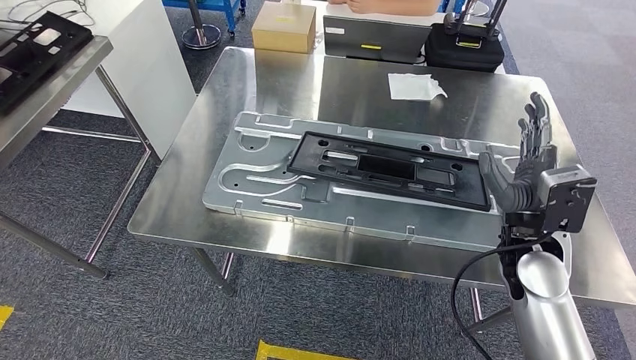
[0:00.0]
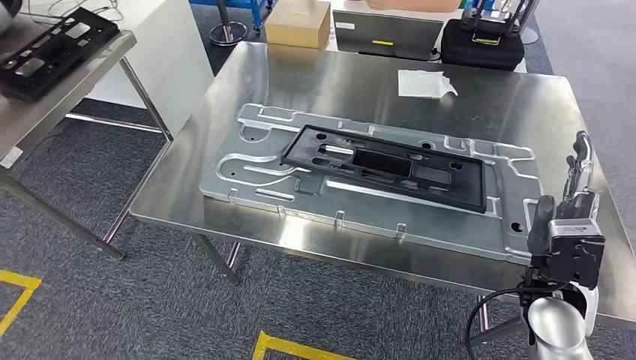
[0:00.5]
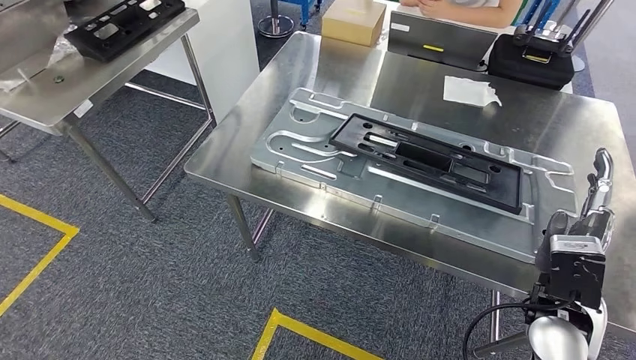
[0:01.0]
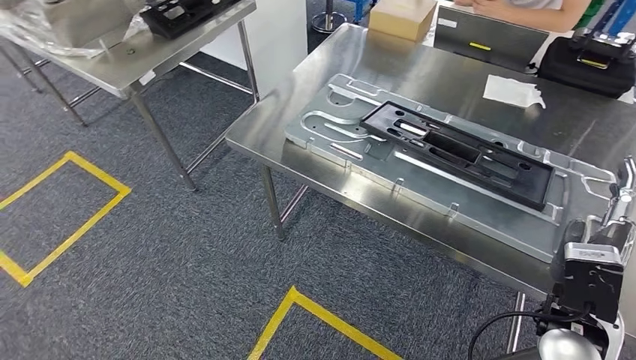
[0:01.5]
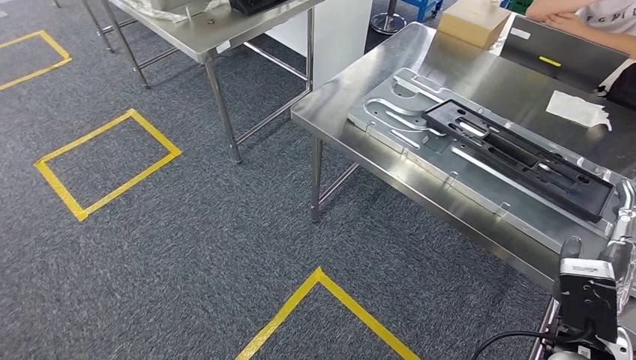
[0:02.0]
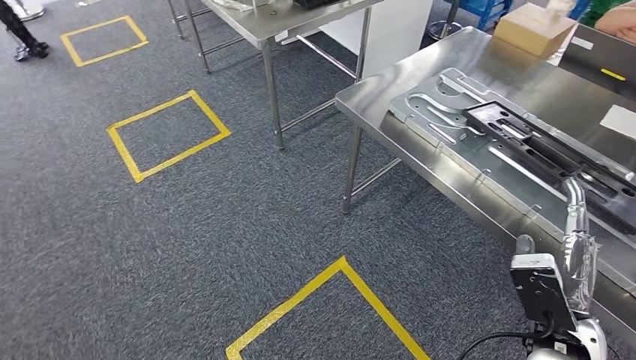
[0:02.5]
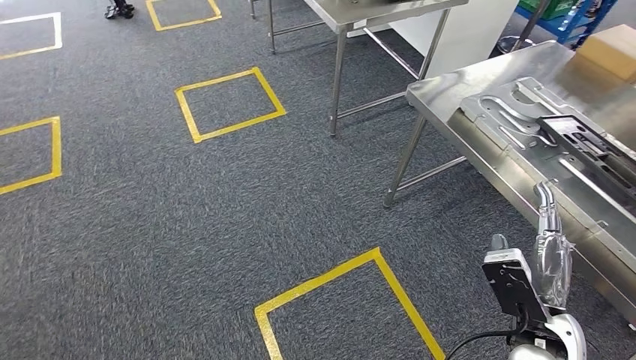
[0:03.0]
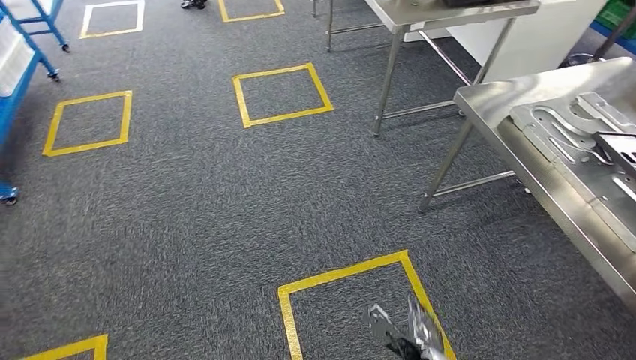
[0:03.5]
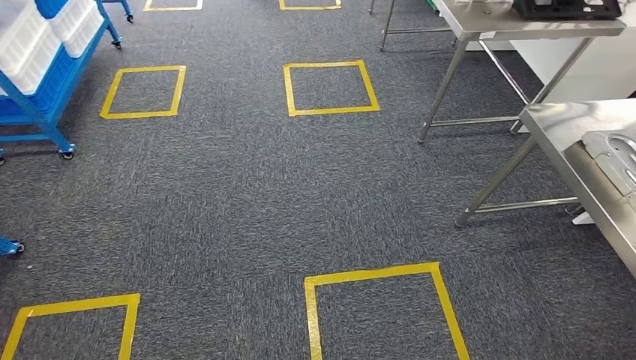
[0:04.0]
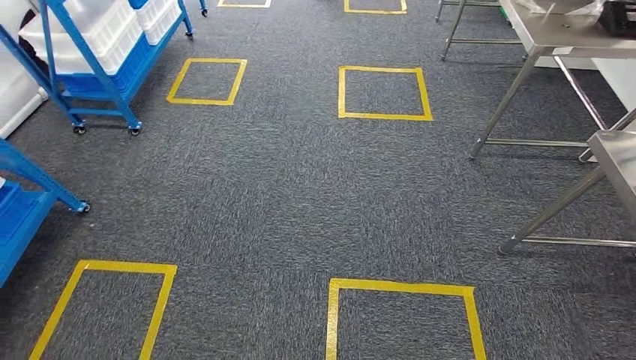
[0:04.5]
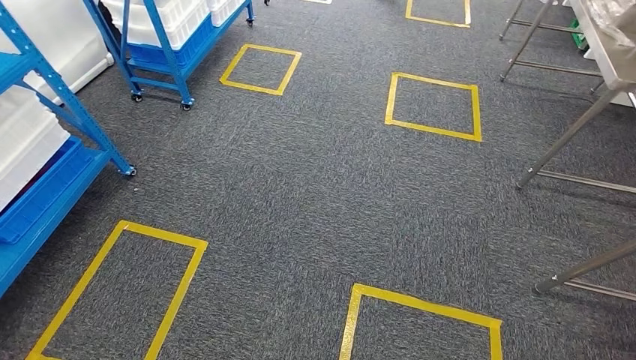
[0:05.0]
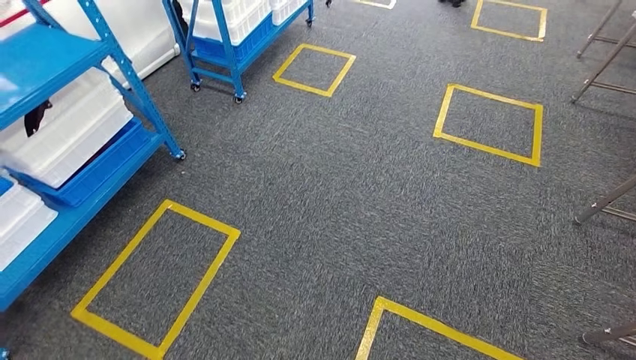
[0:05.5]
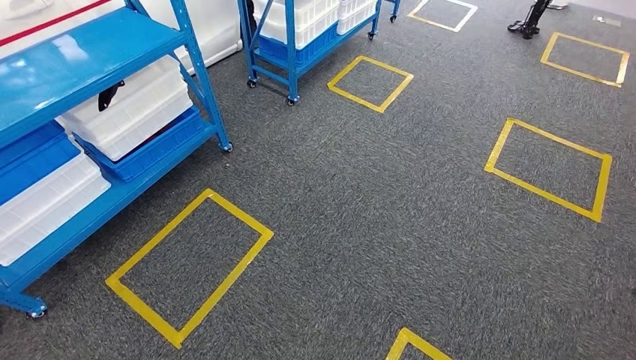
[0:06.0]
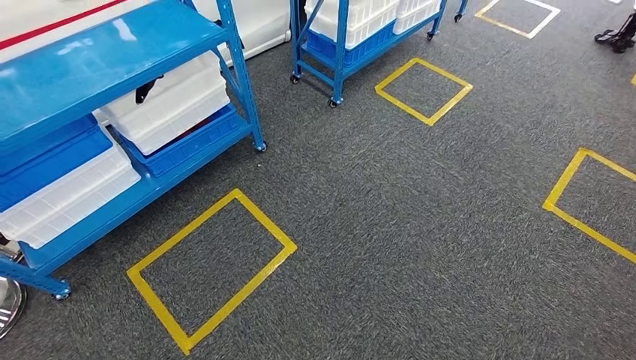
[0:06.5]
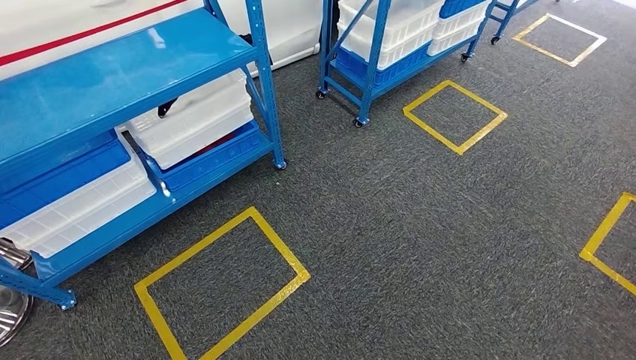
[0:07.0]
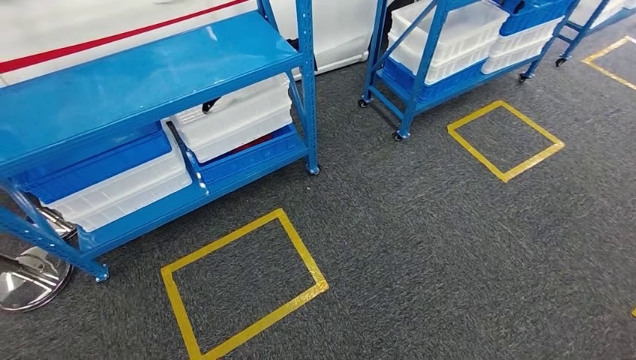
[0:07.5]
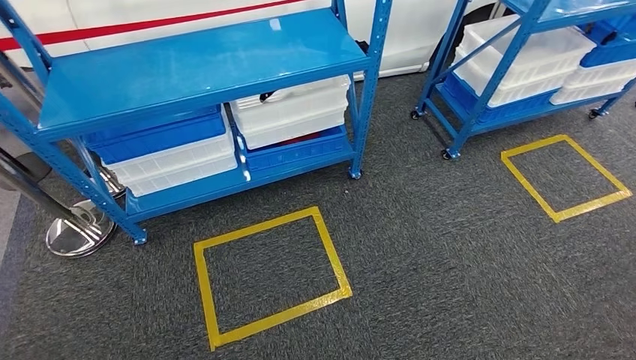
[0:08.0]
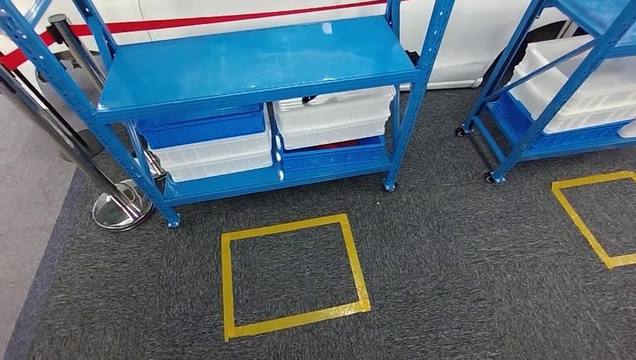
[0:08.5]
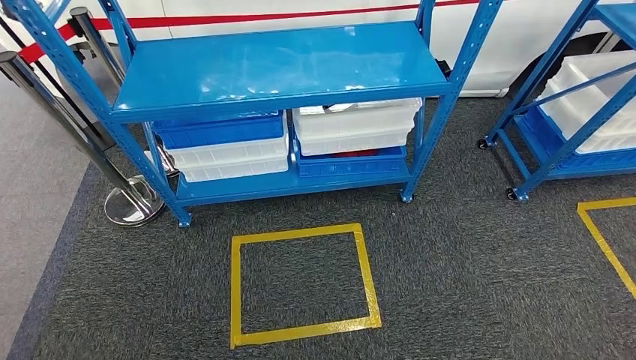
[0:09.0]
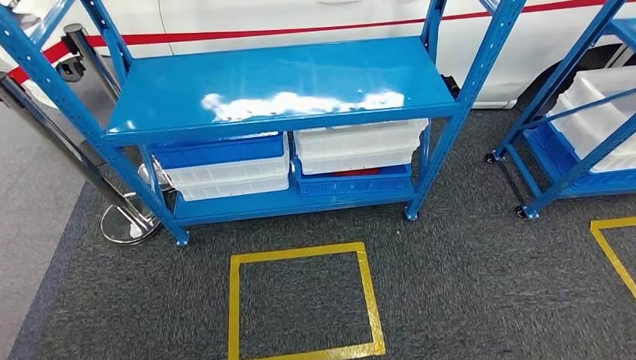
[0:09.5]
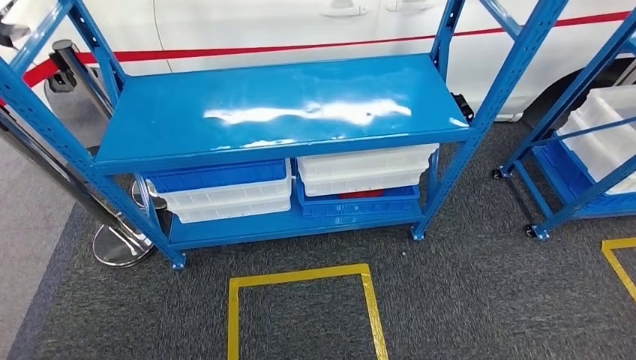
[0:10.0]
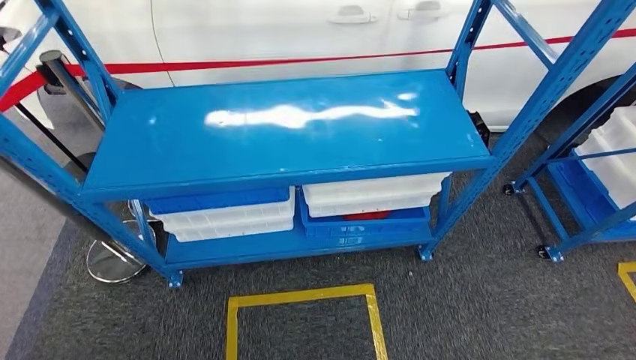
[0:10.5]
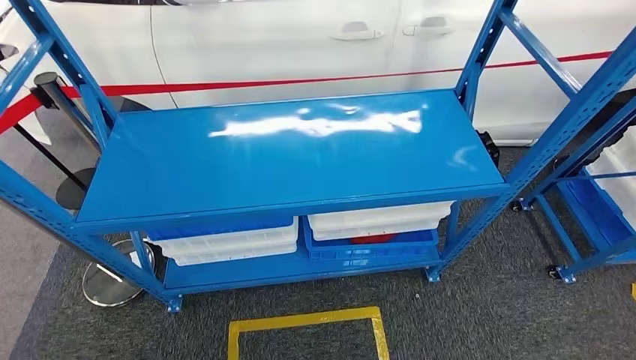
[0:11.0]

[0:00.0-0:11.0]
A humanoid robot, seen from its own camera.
Step, 0:03.0 to 0:10.5: Return to the initial position at the shelf.

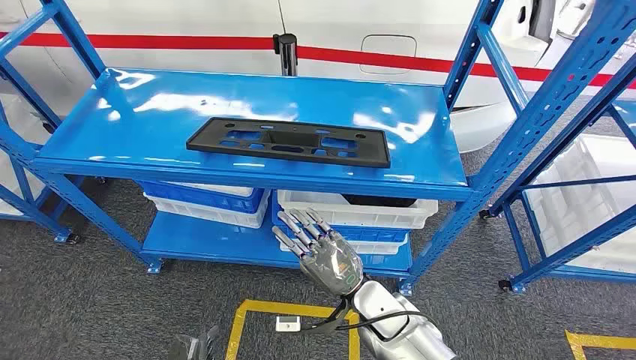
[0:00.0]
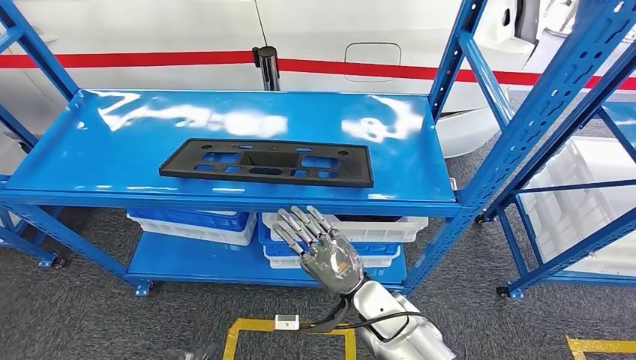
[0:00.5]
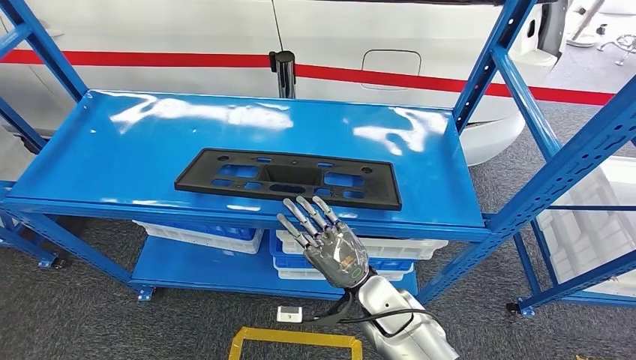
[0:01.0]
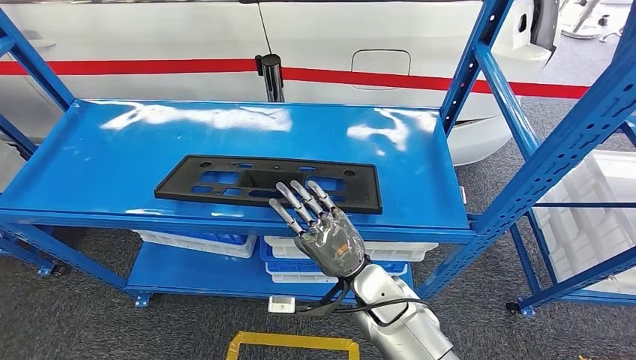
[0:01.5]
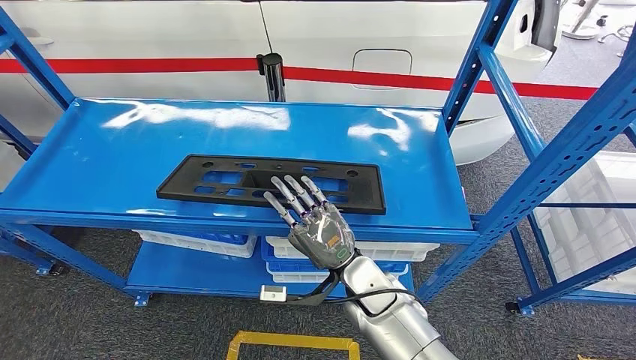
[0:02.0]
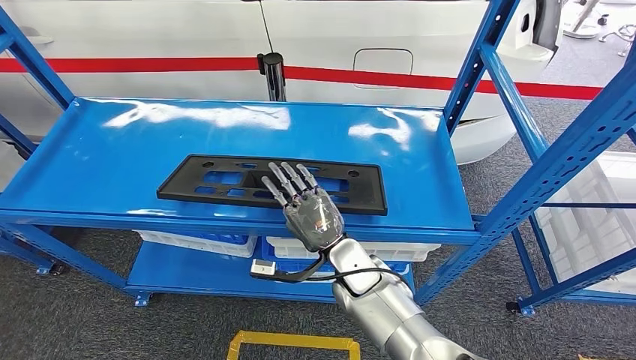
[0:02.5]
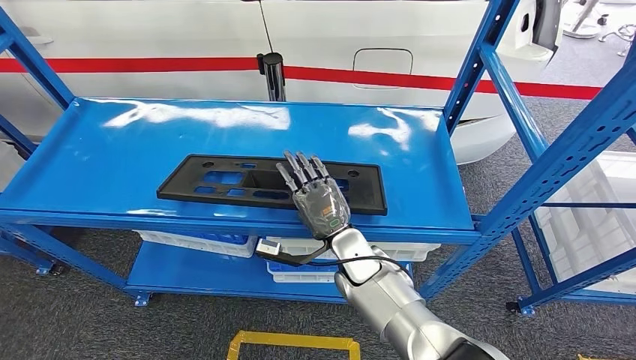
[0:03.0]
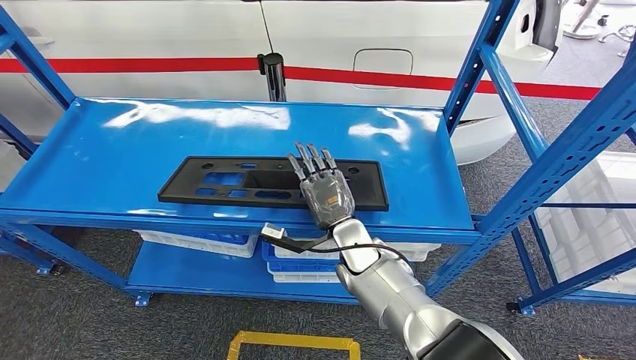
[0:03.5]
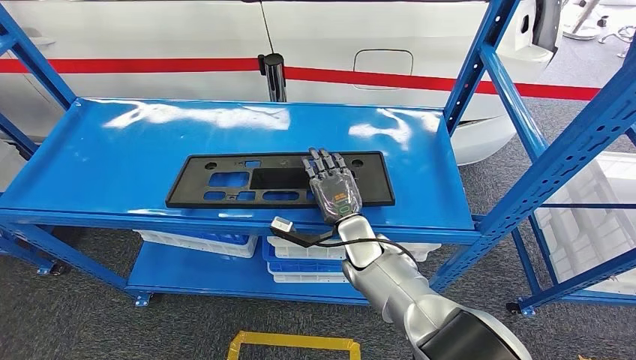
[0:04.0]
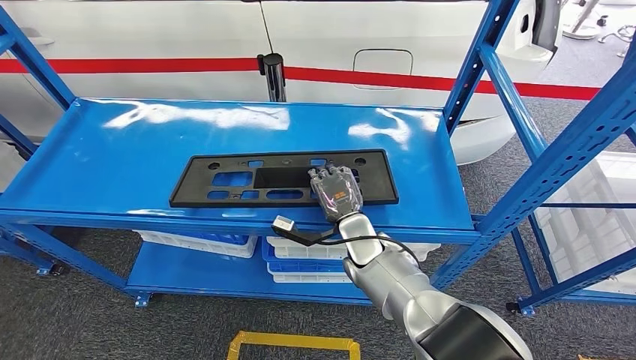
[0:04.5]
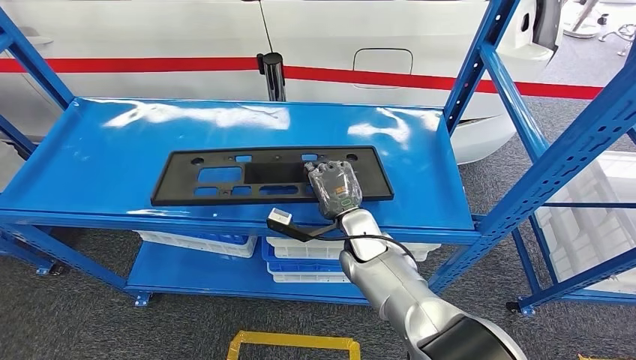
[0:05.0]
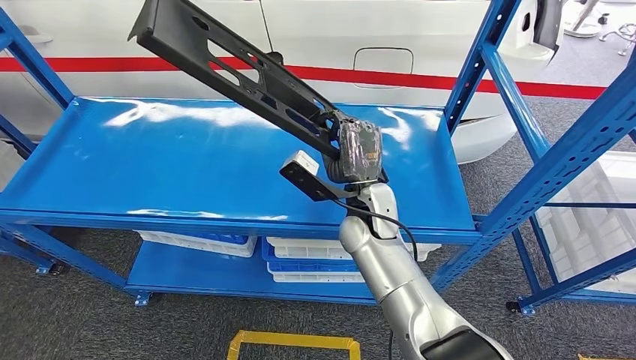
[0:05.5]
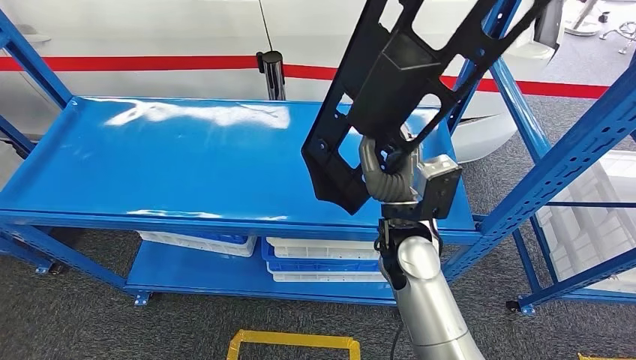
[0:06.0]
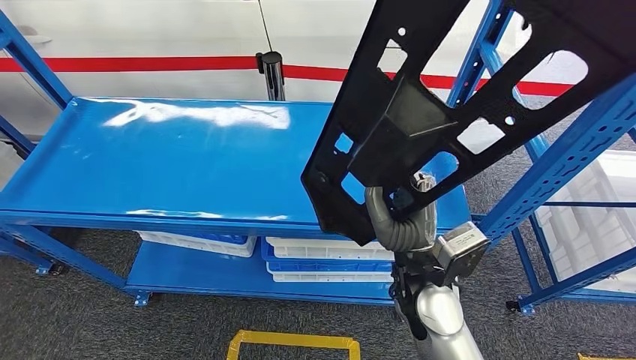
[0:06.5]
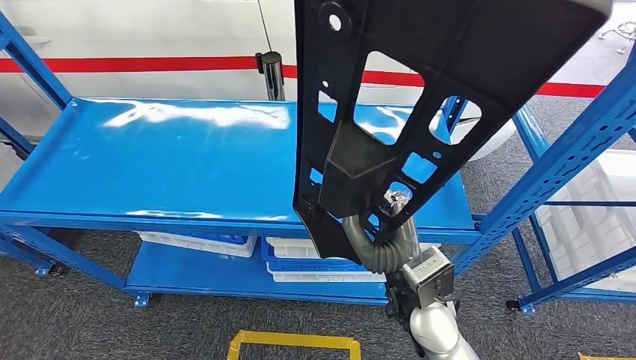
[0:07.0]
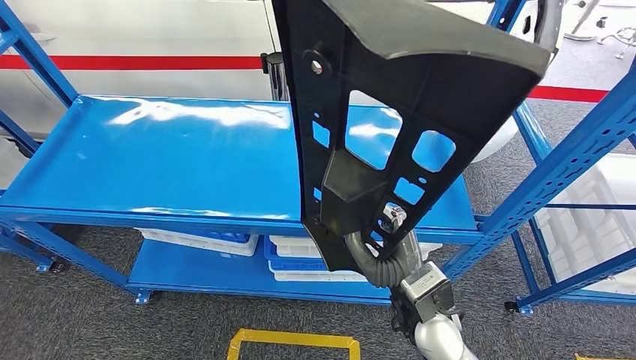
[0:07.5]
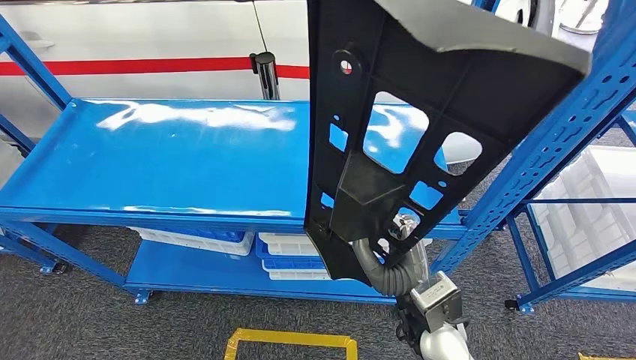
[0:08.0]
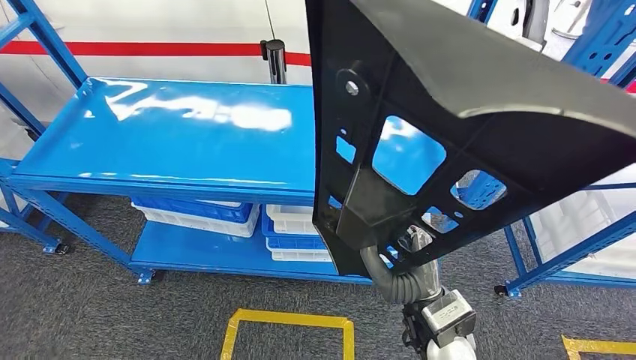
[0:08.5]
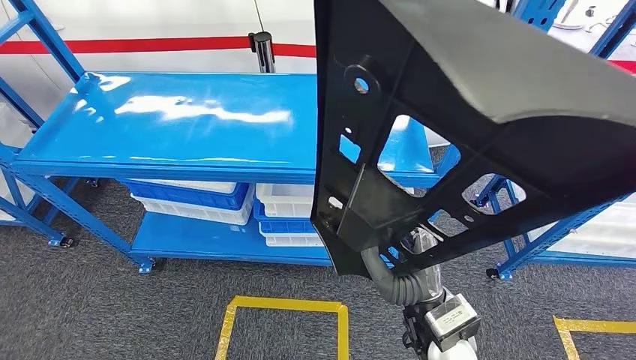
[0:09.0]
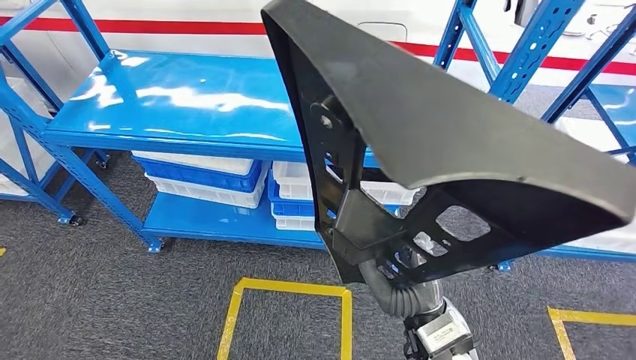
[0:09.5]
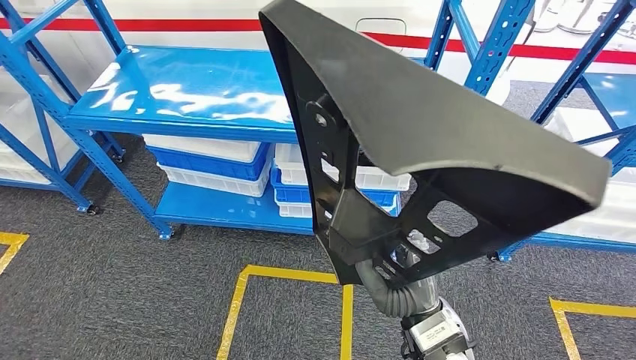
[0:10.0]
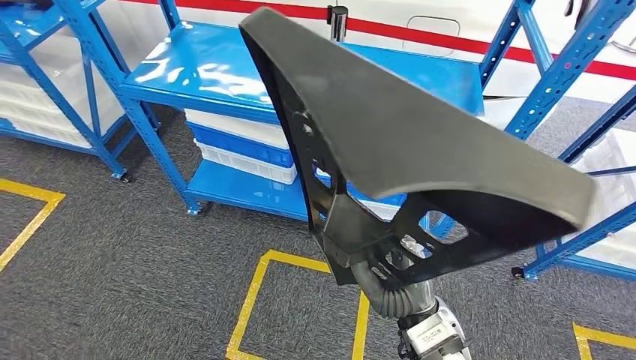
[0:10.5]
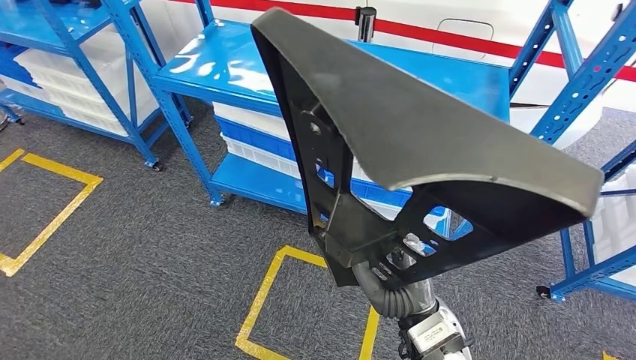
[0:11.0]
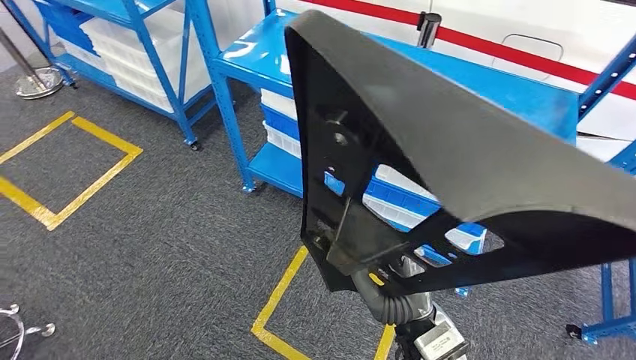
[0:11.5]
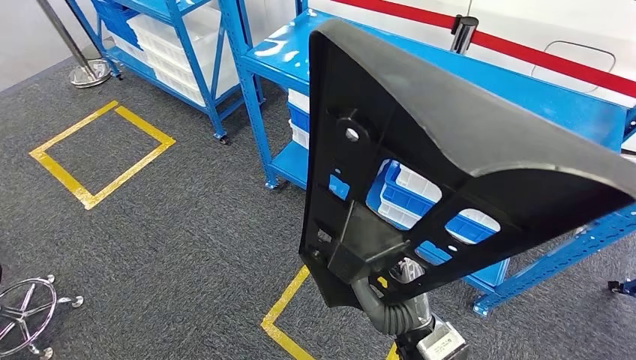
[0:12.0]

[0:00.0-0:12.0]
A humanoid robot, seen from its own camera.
Step, 0:00.0 to 0:08.0: Pick up the large parts from the shelf.
0:02.0 to 0:04.0: The right hand travels forward by about 10 cm.
